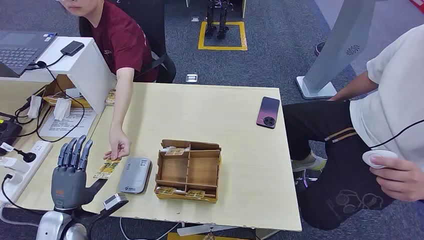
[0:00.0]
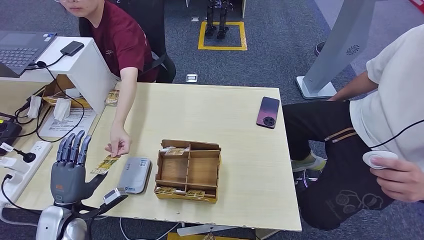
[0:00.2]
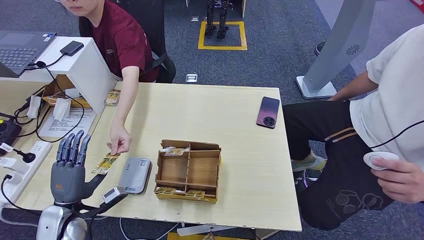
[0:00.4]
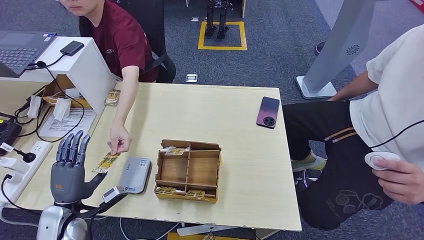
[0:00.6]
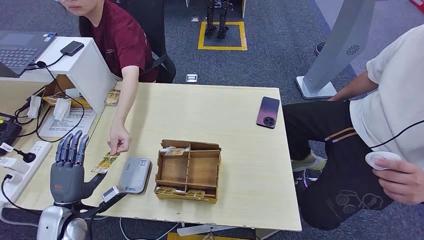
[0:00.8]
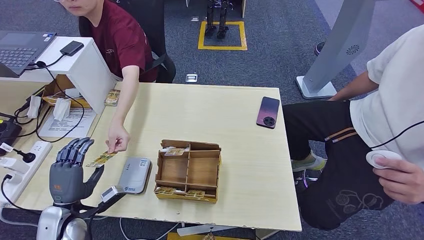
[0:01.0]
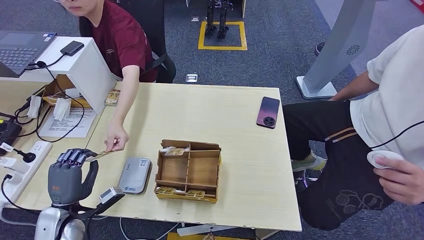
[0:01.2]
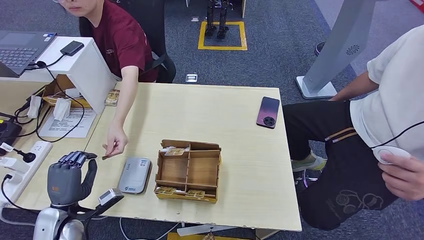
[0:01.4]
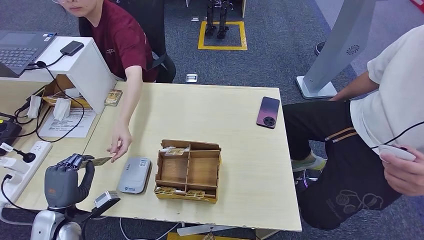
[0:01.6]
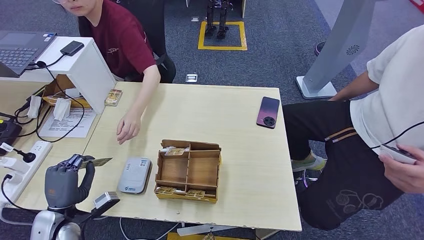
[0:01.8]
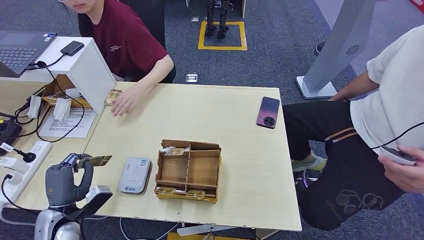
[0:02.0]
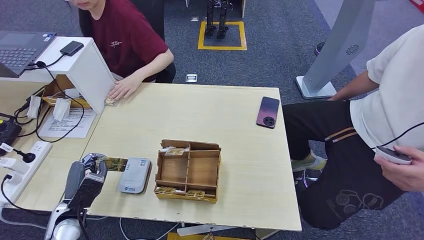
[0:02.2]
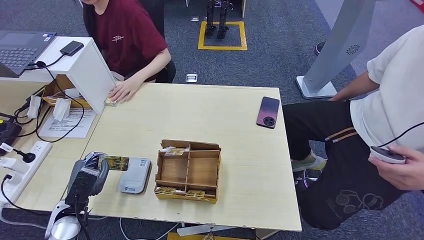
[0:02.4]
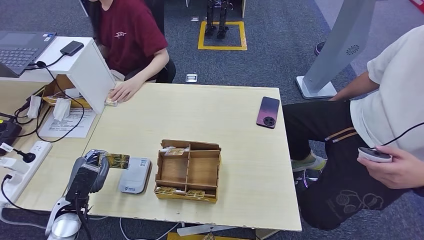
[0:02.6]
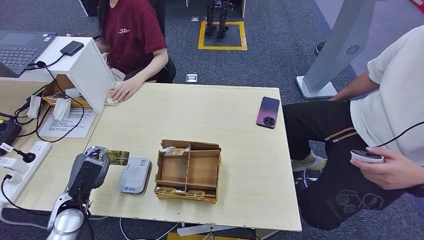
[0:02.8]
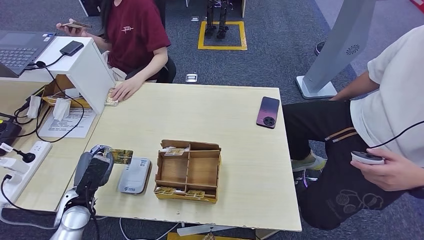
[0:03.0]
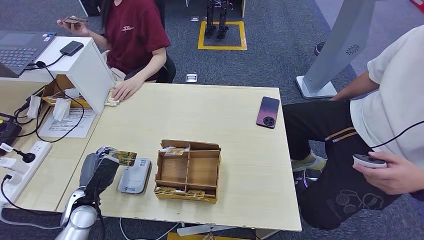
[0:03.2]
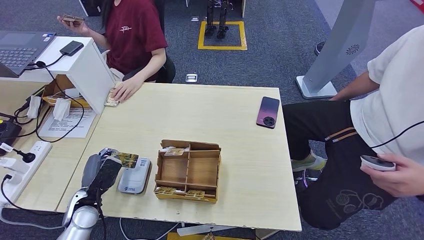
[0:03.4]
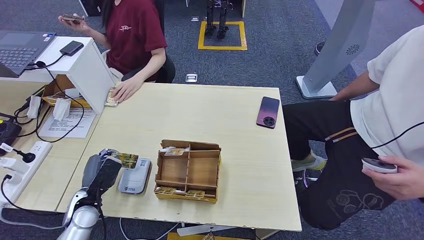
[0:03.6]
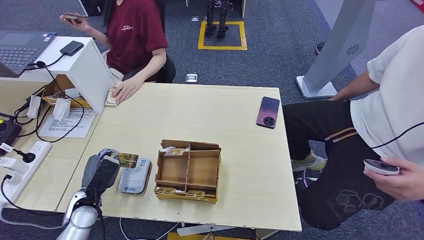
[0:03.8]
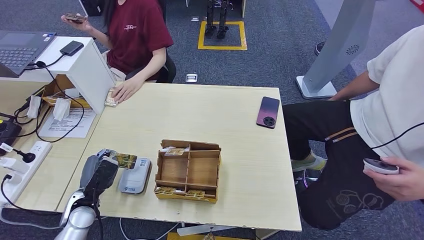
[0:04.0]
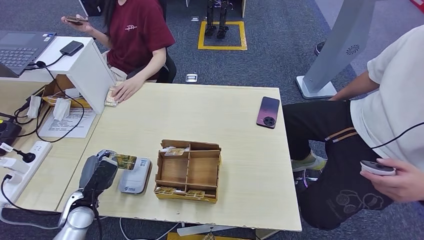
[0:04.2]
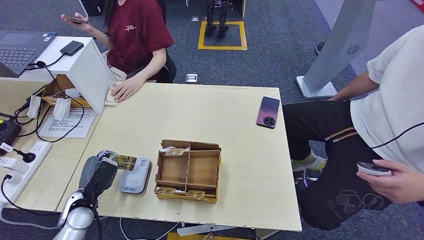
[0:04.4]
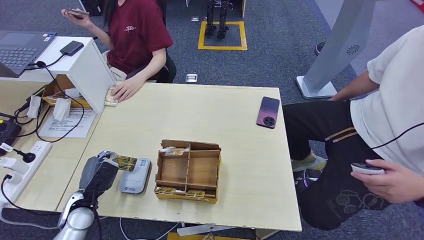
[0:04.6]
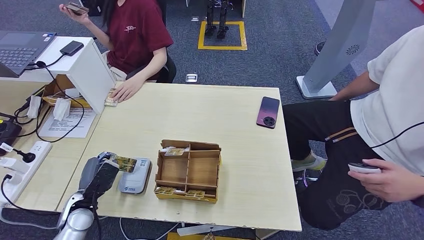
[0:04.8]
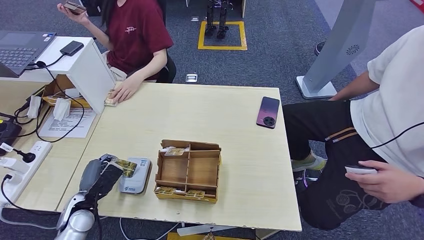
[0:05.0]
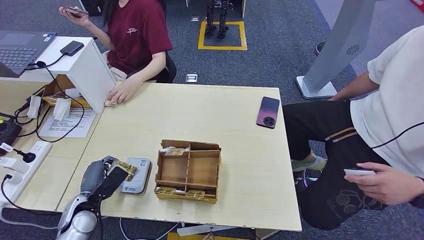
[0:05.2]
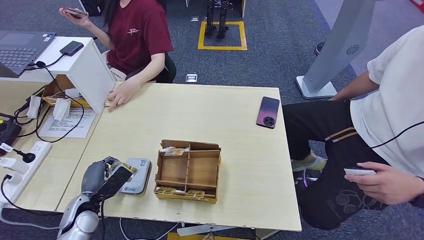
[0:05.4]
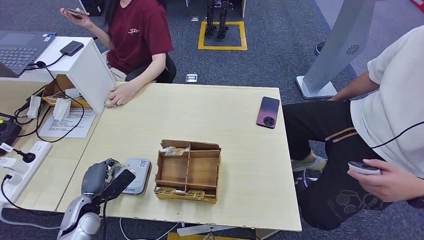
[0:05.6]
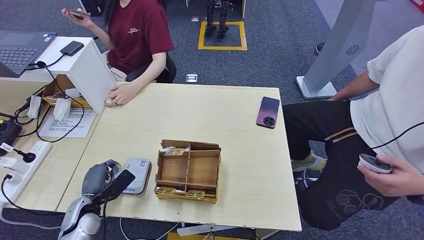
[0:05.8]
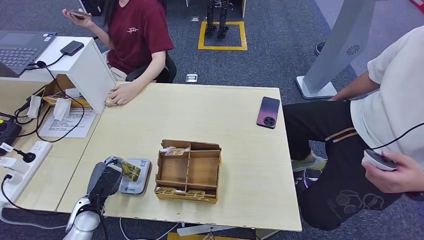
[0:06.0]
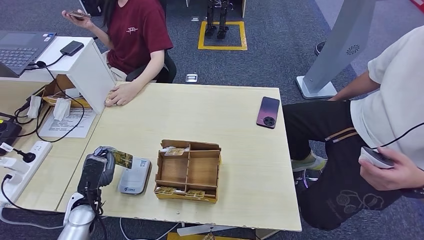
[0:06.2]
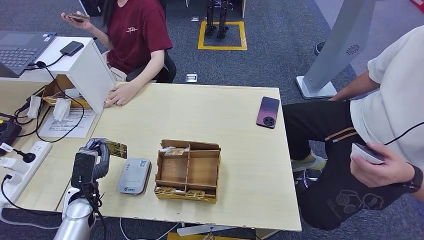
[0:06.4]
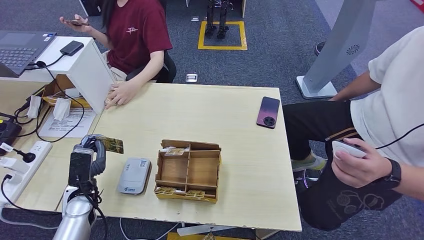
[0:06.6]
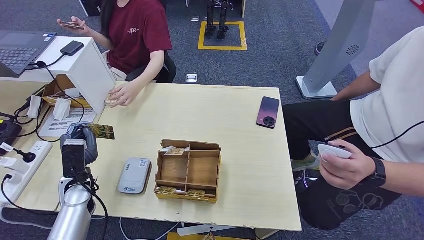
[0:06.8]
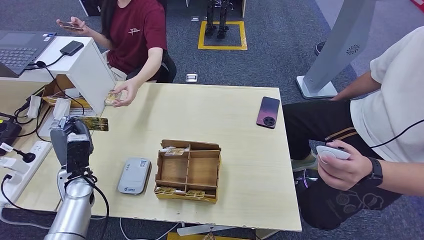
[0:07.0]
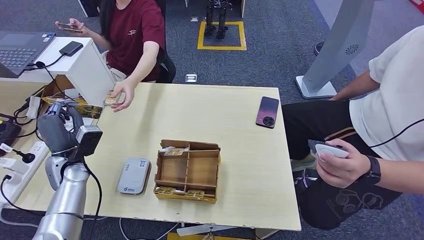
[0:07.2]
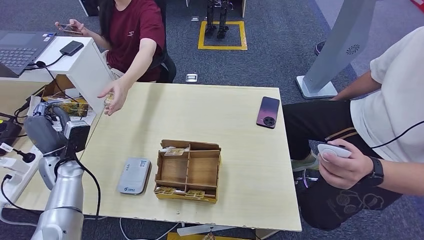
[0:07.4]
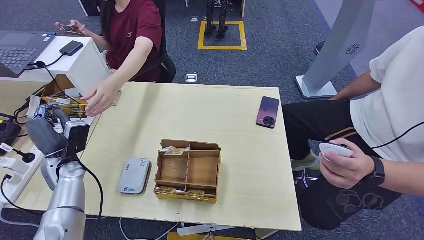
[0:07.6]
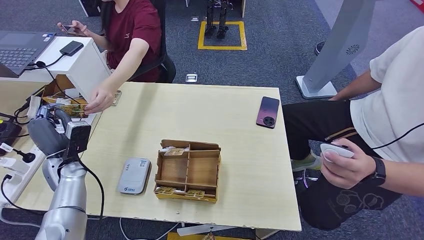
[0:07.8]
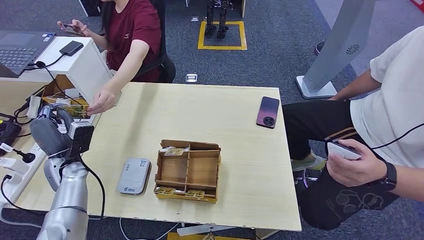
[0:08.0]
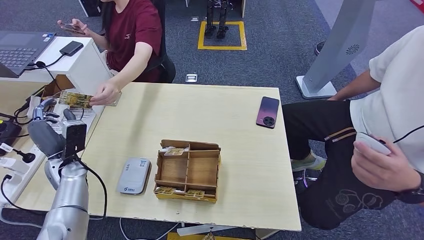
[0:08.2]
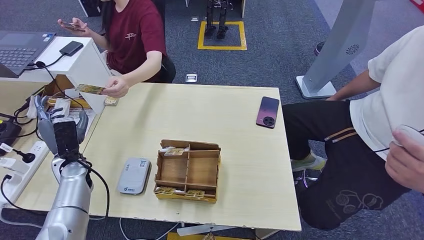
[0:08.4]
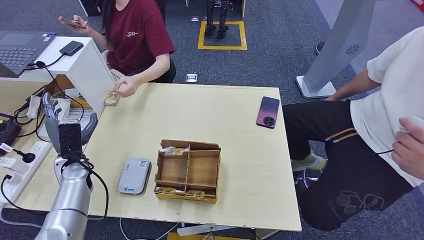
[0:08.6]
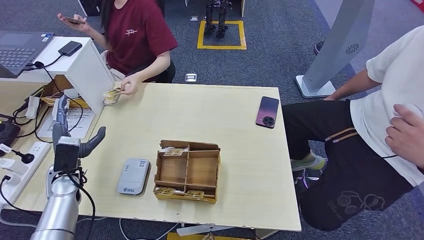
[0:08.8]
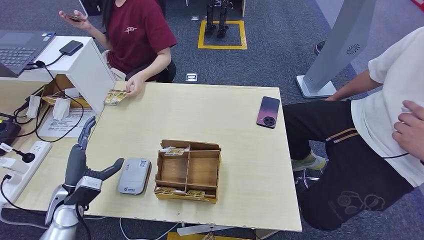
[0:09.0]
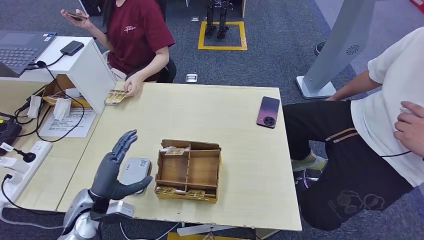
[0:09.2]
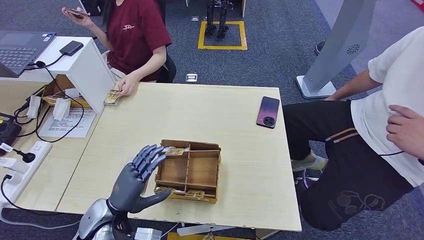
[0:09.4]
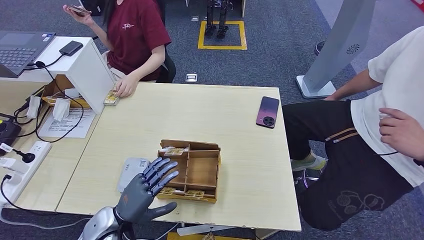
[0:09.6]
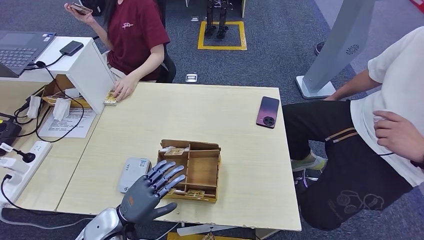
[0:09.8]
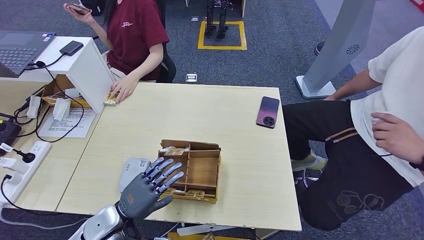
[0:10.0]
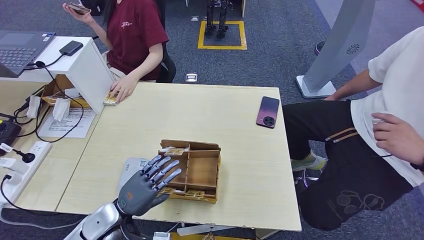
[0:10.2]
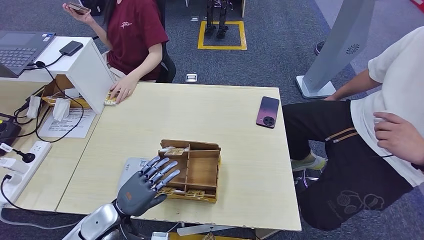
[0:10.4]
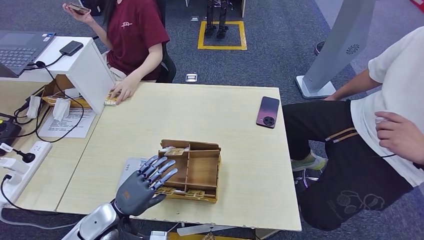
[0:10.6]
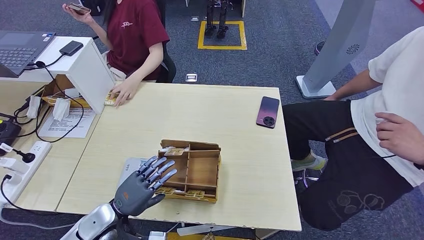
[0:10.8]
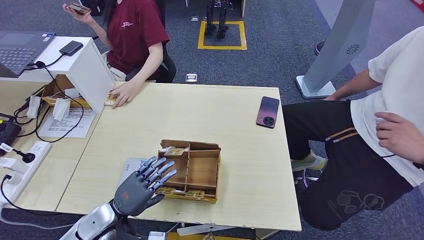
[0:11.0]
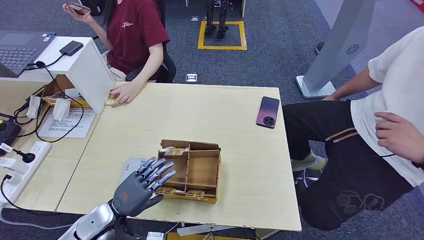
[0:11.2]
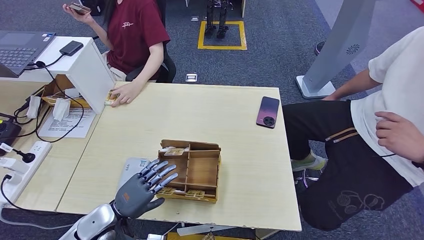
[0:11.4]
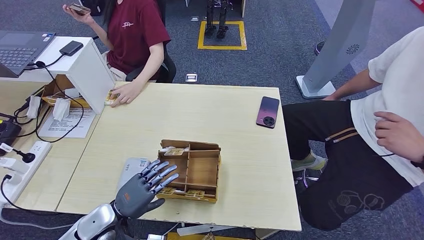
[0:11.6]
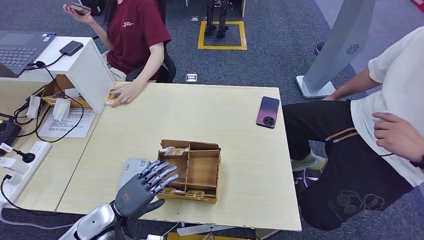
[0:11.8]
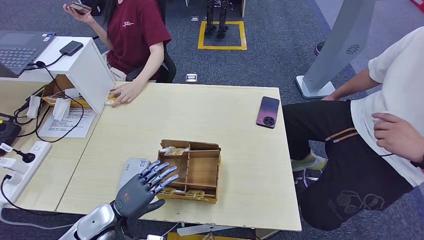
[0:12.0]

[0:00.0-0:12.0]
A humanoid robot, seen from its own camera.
Step, 0:00.0 to 0:01.6: Take the ID card from the person's hand.
Step, 0:02.0 to 0:05.4: Place the ID card on the card reader.
Step, 0:05.6 to 0:08.4: Hand the ID card to the person.
0:01.6 to 0:03.0: The left hand moves roughly 5 cm.
0:03.0 to 0:04.4: The hands move only a little.
0:06.0 to 0:07.6: The left hand is displaced forward and upward by roughly 15 cm.
0:07.6 to 0:09.0: The left hand heads backward, covering approximately 10 cm.
0:09.0 to 0:10.4: The left hand heads to the right, covering some 10 cm.
0:10.4 to 0:12.0: The hands stay close to where they were, moving slightly.

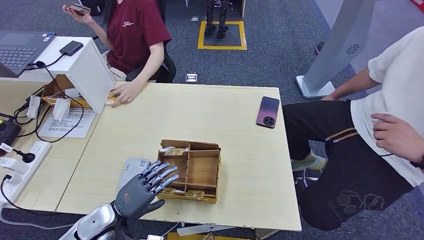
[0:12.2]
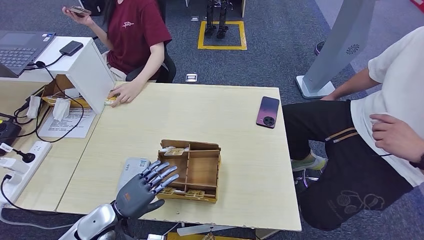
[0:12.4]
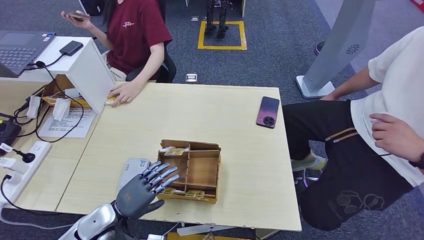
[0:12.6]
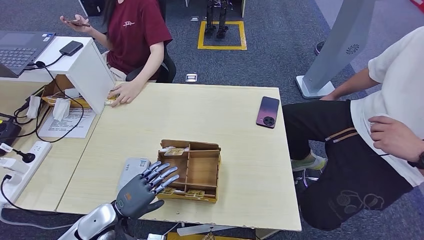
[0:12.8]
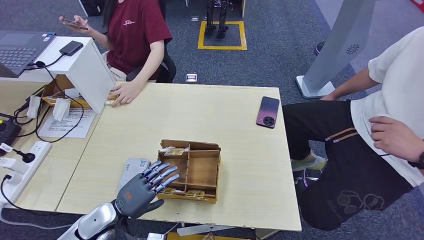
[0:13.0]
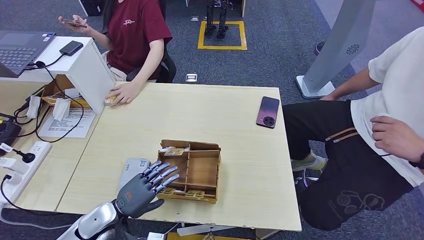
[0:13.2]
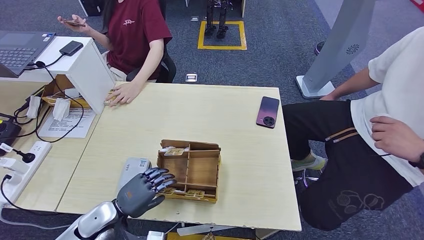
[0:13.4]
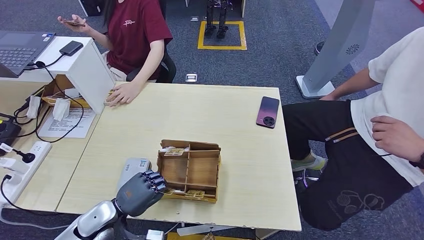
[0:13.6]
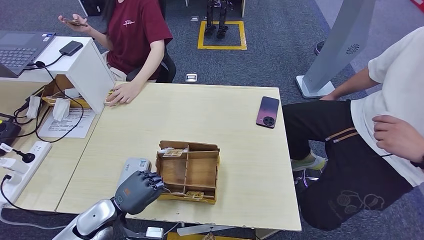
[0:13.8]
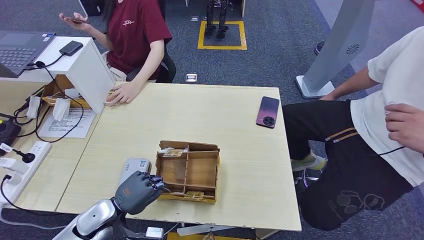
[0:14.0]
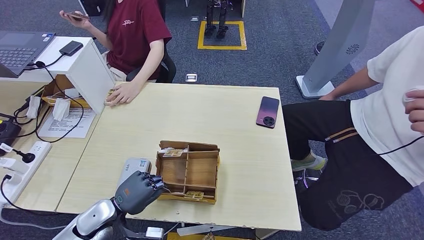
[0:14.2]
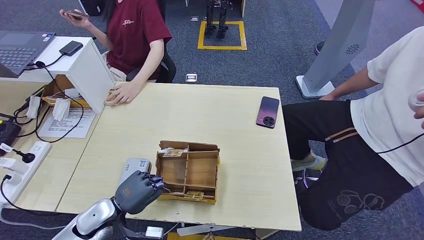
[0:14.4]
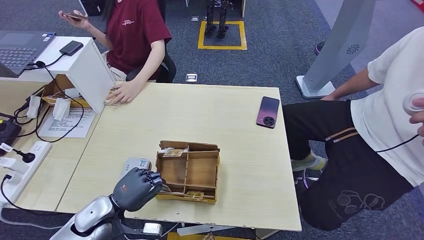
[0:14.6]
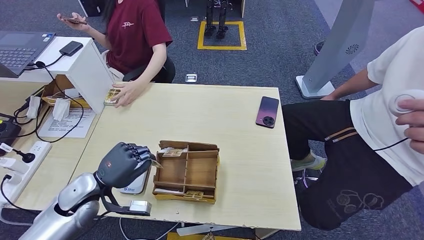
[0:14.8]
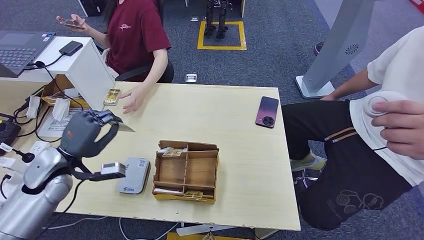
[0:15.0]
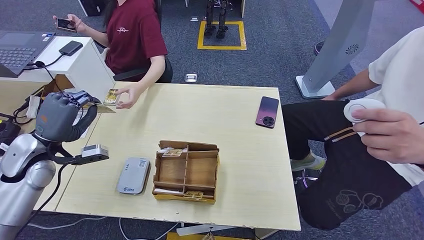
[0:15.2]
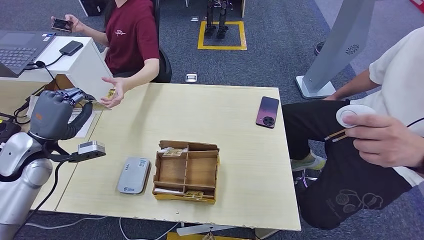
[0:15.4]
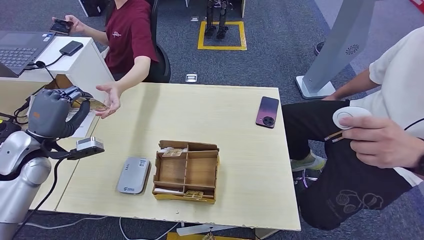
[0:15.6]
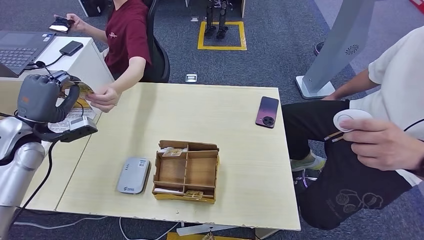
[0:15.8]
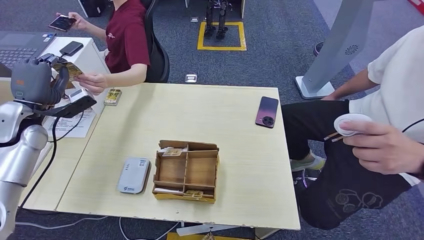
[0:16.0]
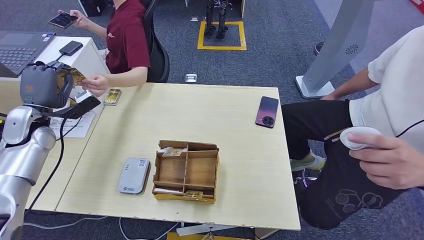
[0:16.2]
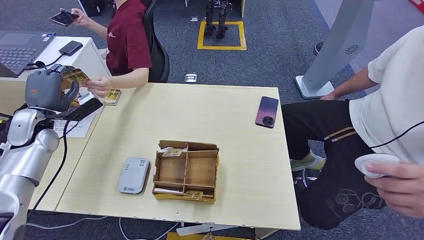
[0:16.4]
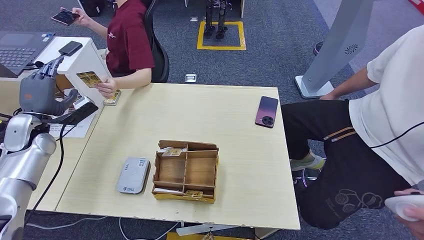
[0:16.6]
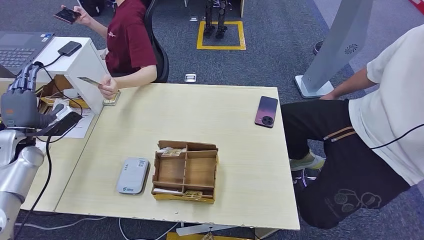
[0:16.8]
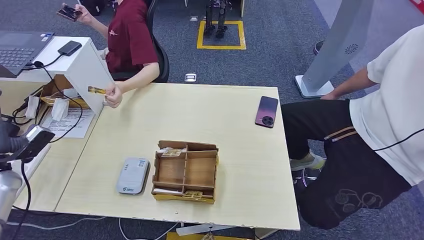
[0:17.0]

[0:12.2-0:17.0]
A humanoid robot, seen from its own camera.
Step, 0:12.2 to 0:14.8: Pick up the room key from the key card box.
Step, 0:15.0 to 0:16.8: Hand the room key to the person.
0:12.2 to 0:13.8: There are only small adjustments of the hands.
0:13.8 to 0:15.4: The left hand is displaced upward, to the left and forward by approximately 25 cm.
0:15.4 to 0:17.0: The left hand is displaced to the left and downward by approximately 15 cm.
